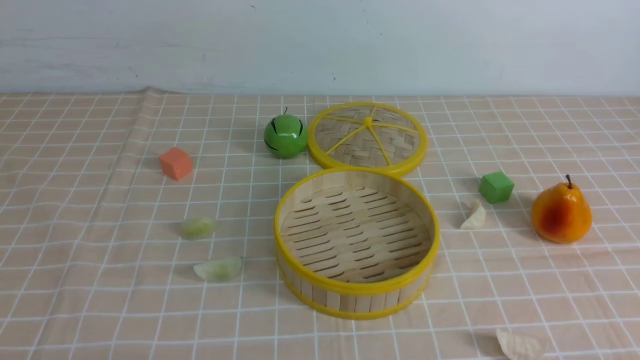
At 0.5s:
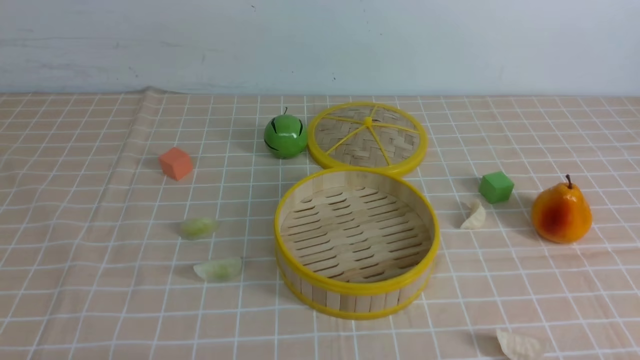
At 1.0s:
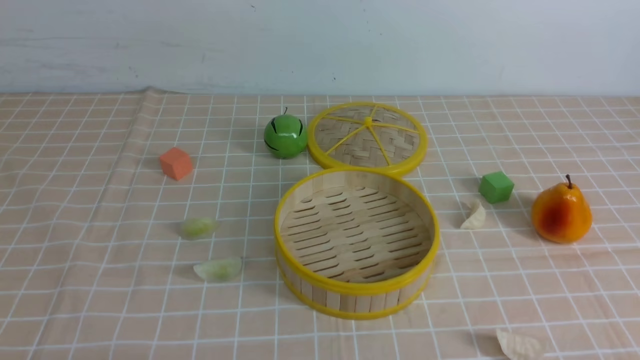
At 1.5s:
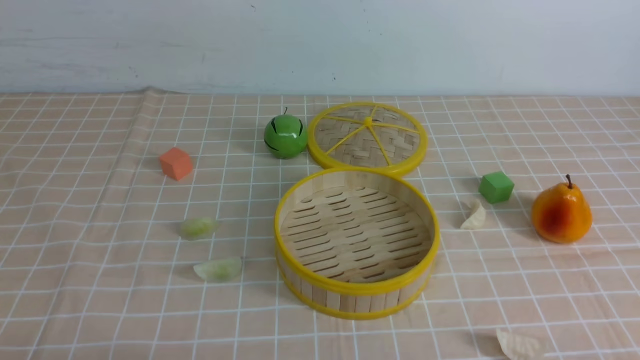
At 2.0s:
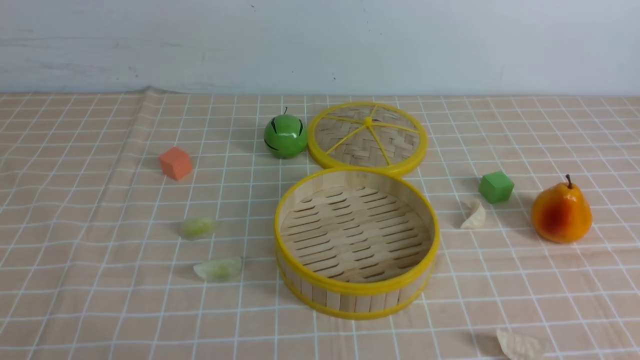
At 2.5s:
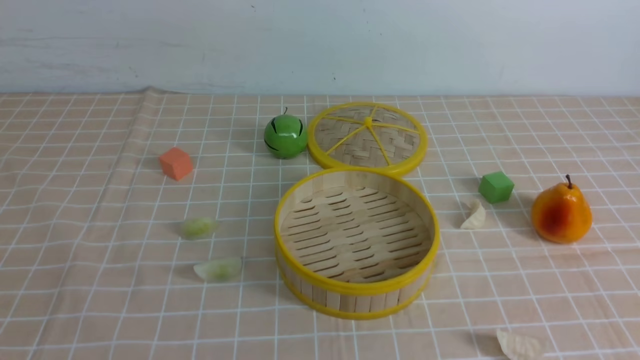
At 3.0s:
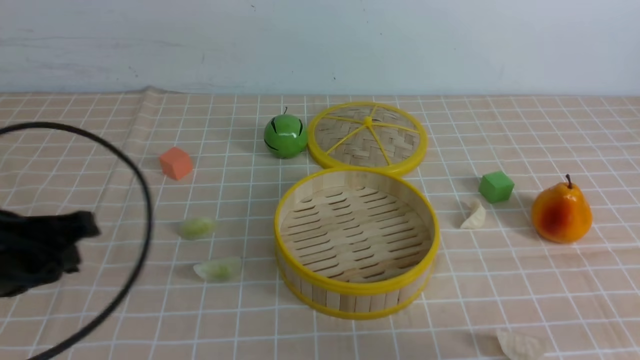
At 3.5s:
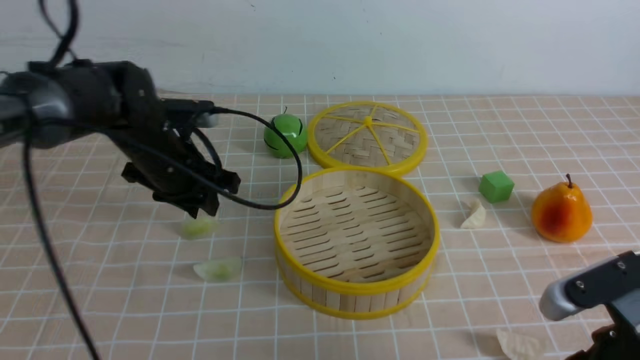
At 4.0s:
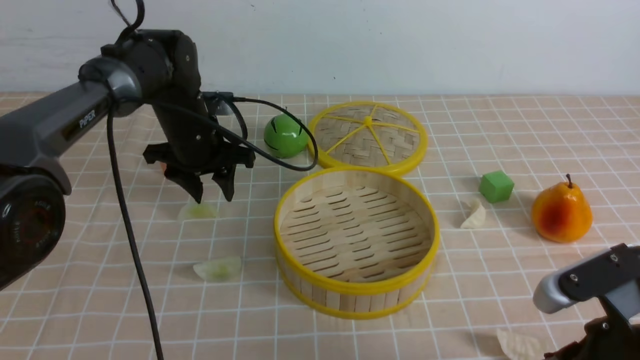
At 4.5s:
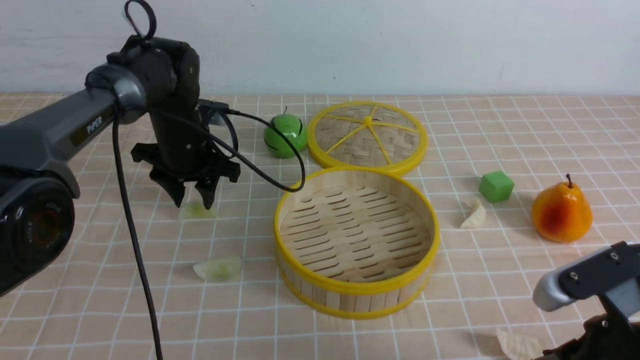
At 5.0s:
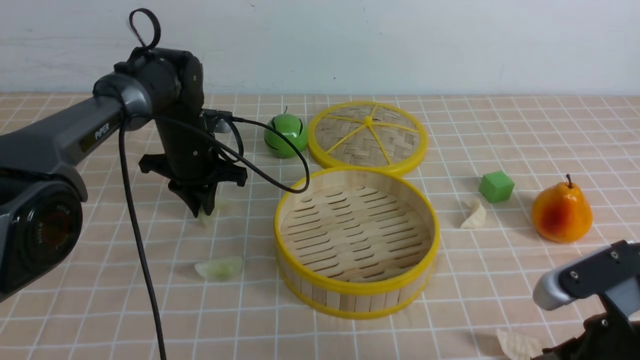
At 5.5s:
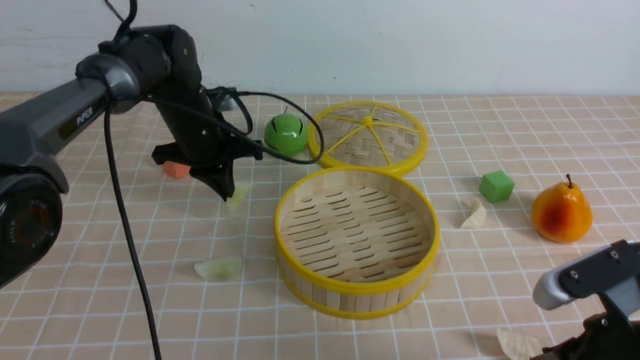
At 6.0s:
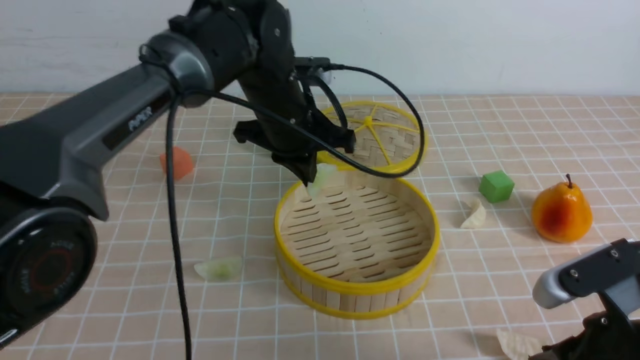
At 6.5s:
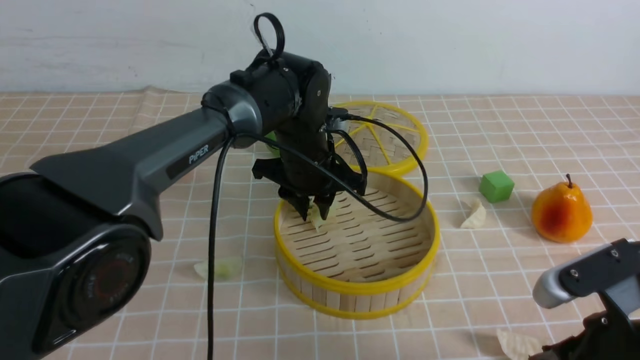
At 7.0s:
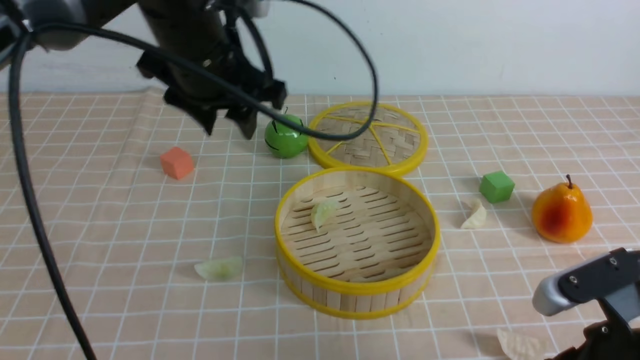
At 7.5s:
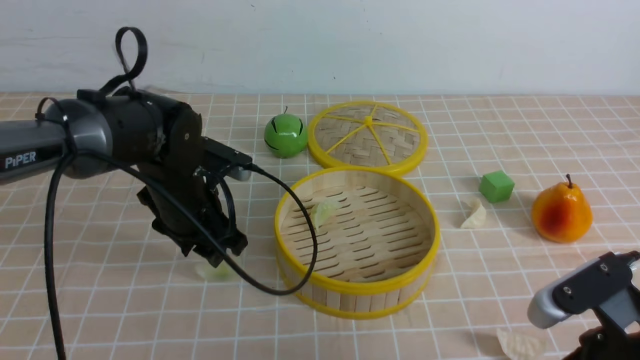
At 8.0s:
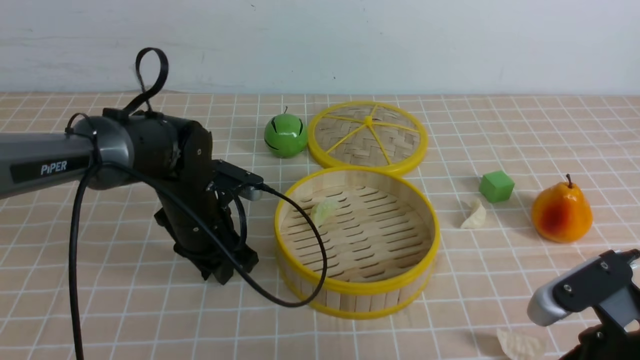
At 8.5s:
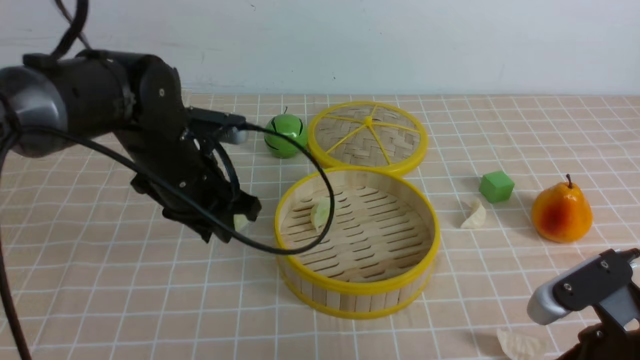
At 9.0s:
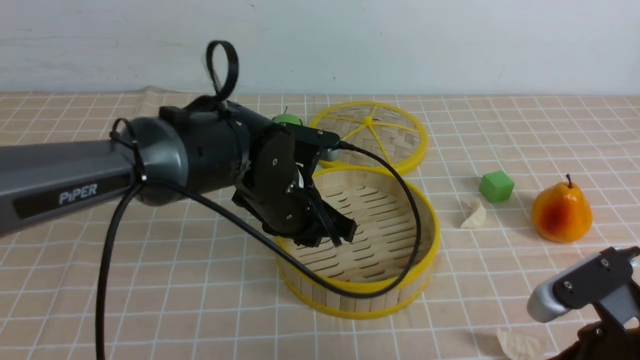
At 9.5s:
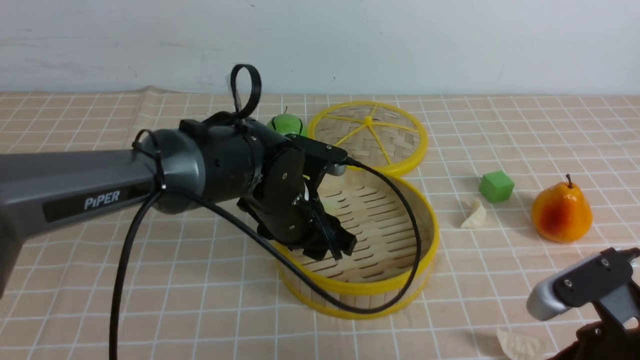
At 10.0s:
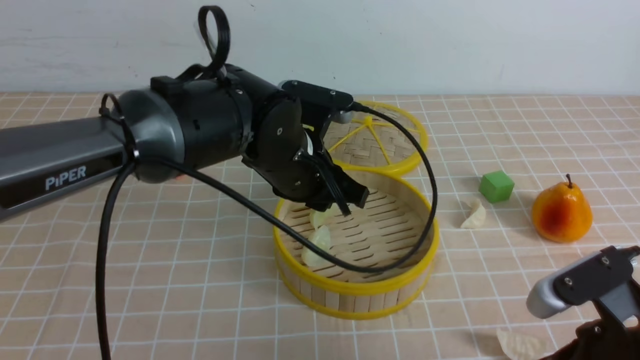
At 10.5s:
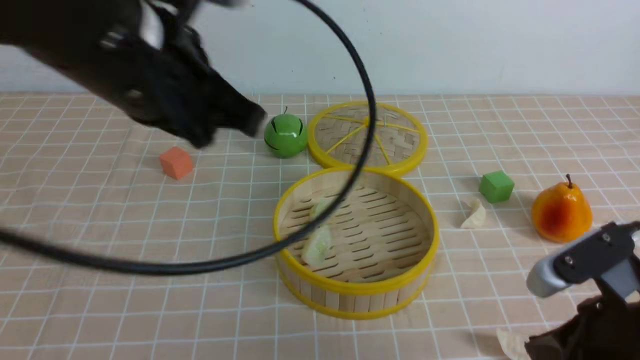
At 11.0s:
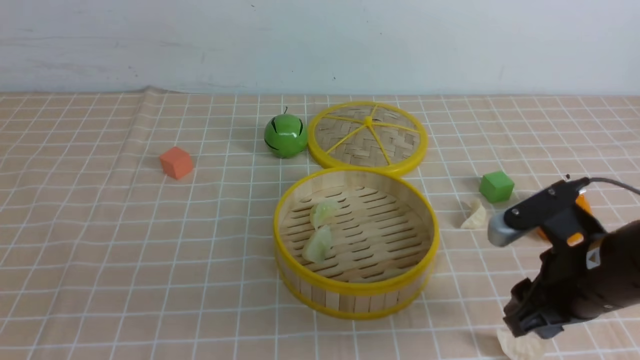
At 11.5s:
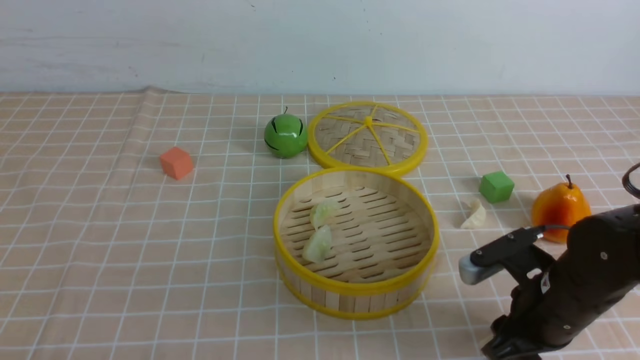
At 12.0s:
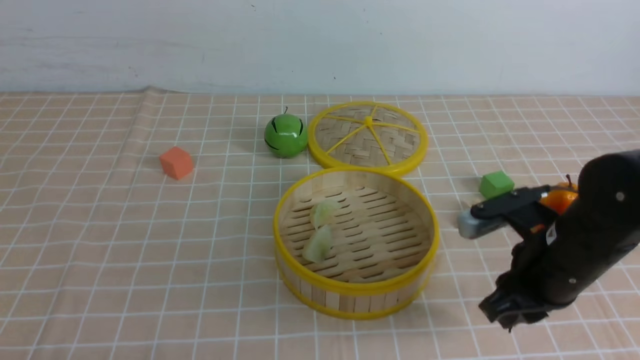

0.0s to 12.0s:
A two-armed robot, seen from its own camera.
Task of the whole recording: put the dumplings into the steamer on the table with the brown tablecloth.
Step, 0.0s to 5.0s: use the left arm to grab a dumpling.
Step, 5.5s to 6.5s: use the left arm to put the dumpling into the steamer.
Step, 7.0s to 8.0s: use the left arm to grab a dumpling.
Step, 8.5s to 9.5s: use the left arm to put the dumpling into the steamer.
Step, 10.0s to 11.5s: use the right arm to grab a dumpling.
2.0s to 4.0s: The left gripper is displaced forward by some 40 cm, and opens up, while the right gripper travels forward and to the left by some 15 cm.
4.0s to 6.0s: The left gripper is displaced to the right by some 10 cm, and closes.
6.0s to 8.0s: The left gripper travels to the left, downward and backward by roughly 15 cm, and opens. The right gripper closes its fingers.
8.0s to 10.0s: The left gripper goes about 15 cm to the right and upward.
10.0s to 12.0s: The left gripper heads backward and to the left, covering about 35 cm, and closes up, while the right gripper travels forward by about 10 cm, and opens its fingers.

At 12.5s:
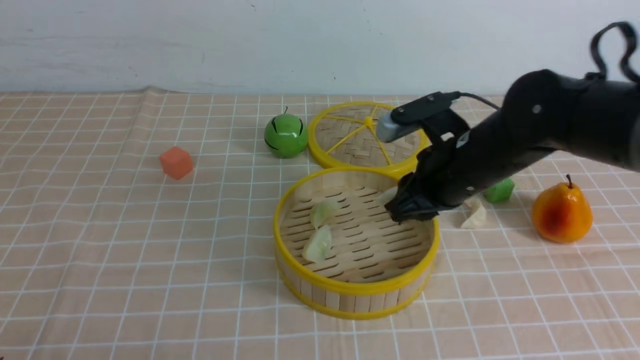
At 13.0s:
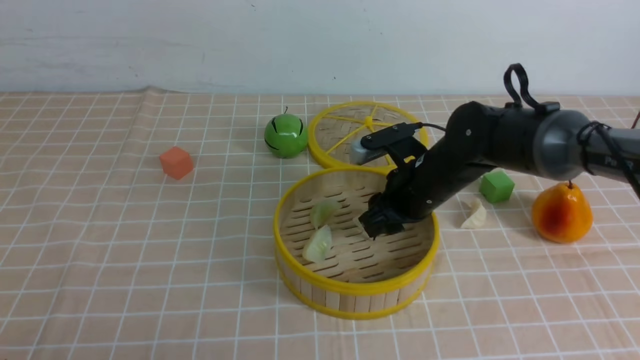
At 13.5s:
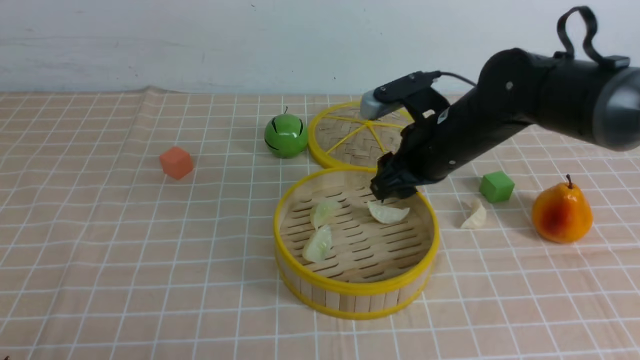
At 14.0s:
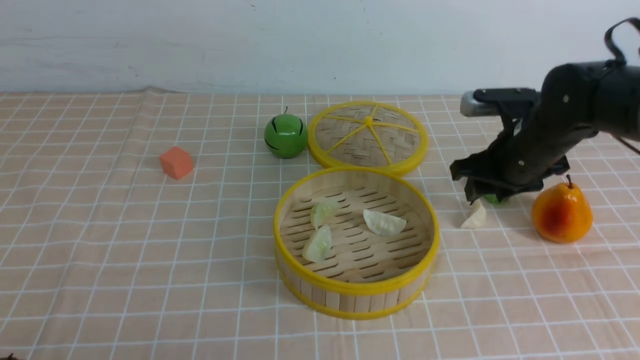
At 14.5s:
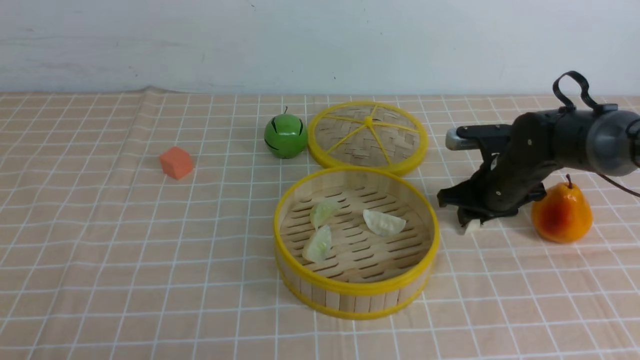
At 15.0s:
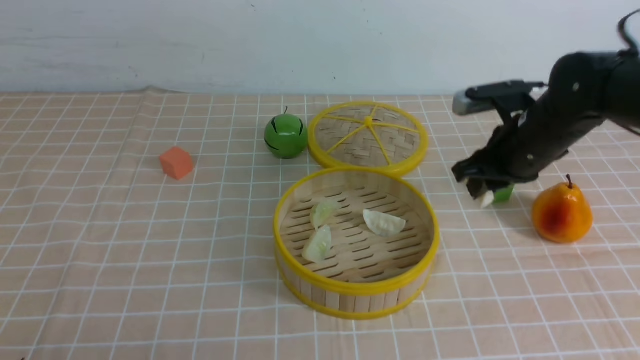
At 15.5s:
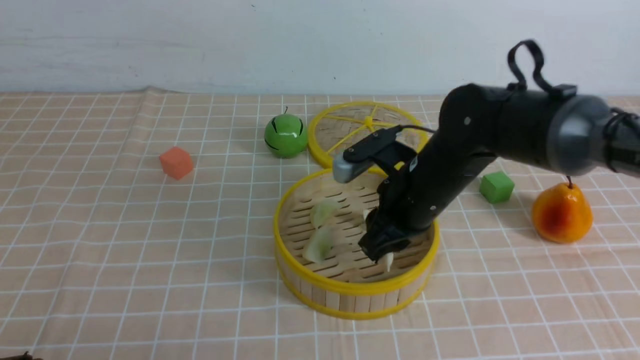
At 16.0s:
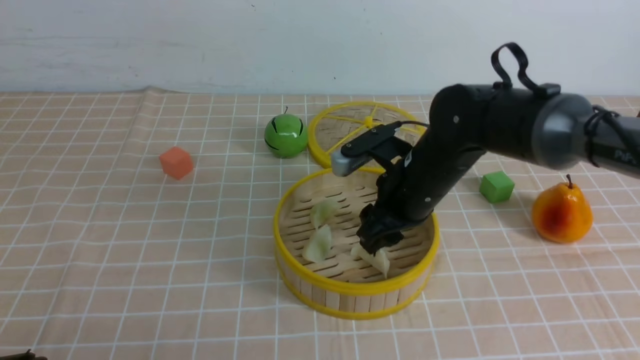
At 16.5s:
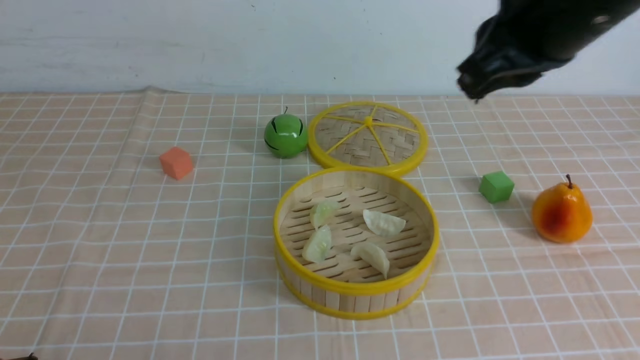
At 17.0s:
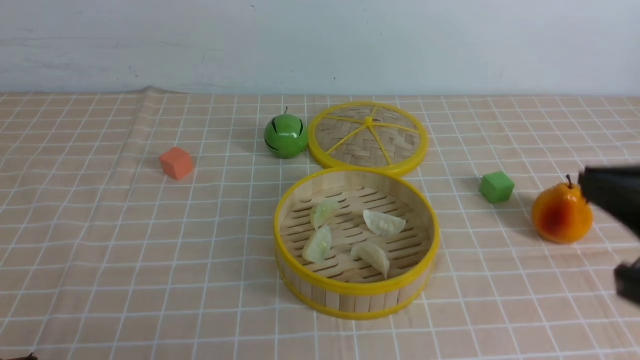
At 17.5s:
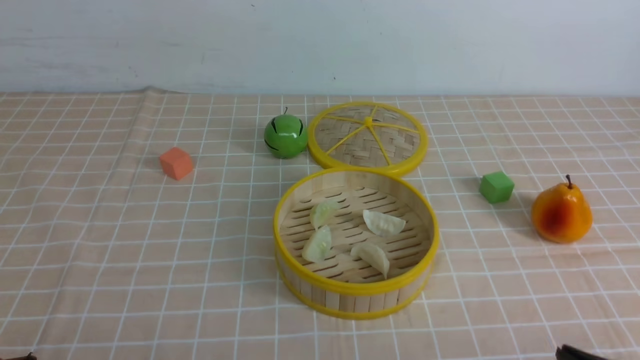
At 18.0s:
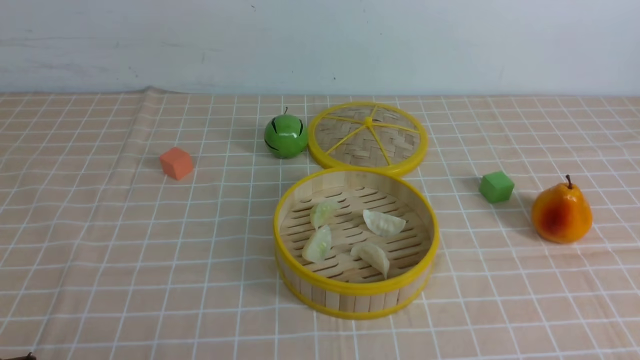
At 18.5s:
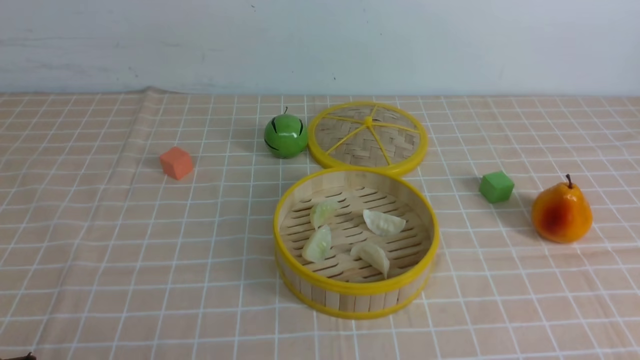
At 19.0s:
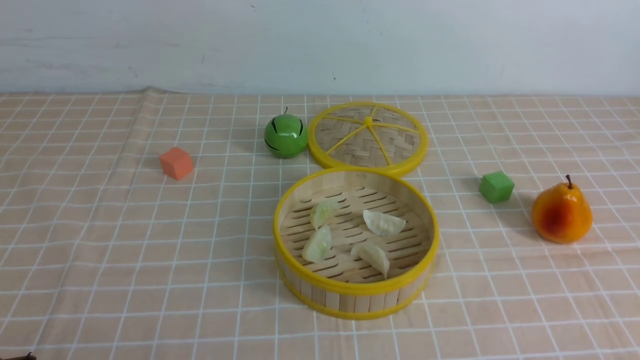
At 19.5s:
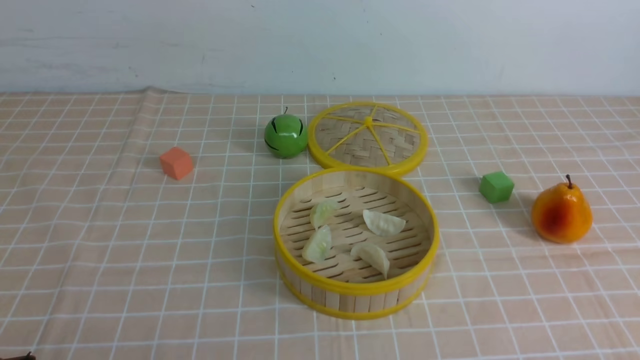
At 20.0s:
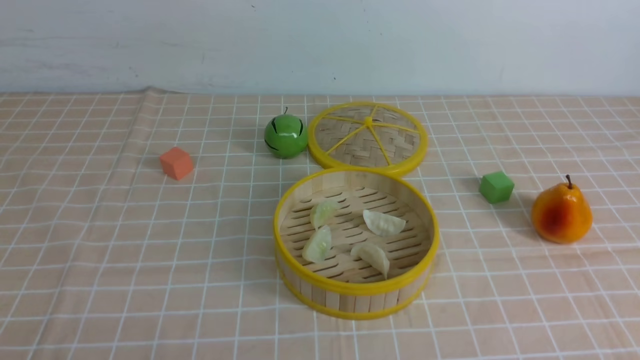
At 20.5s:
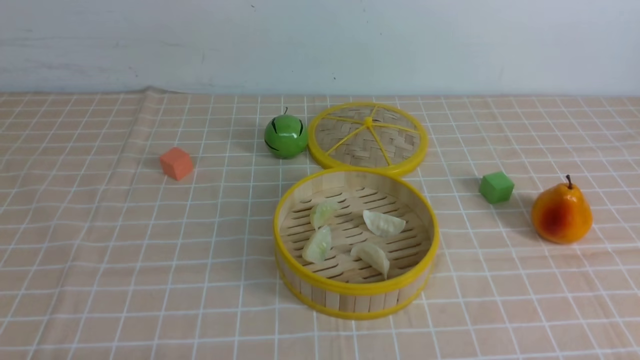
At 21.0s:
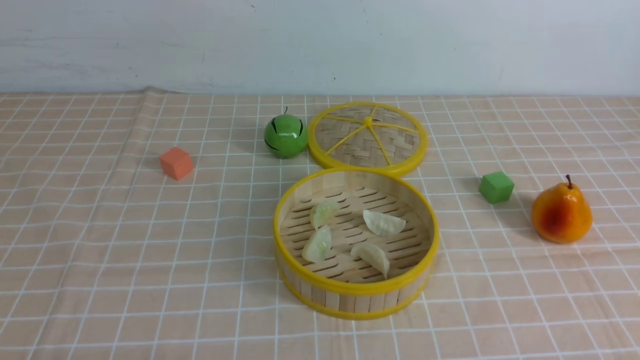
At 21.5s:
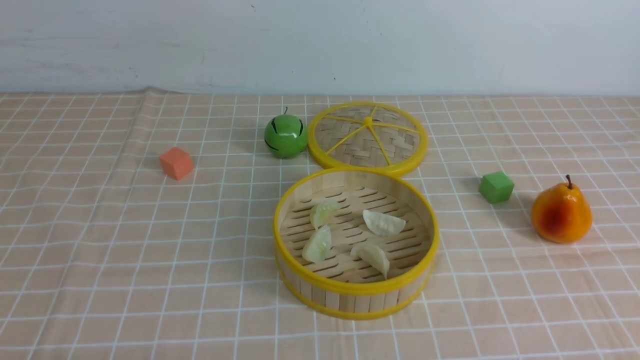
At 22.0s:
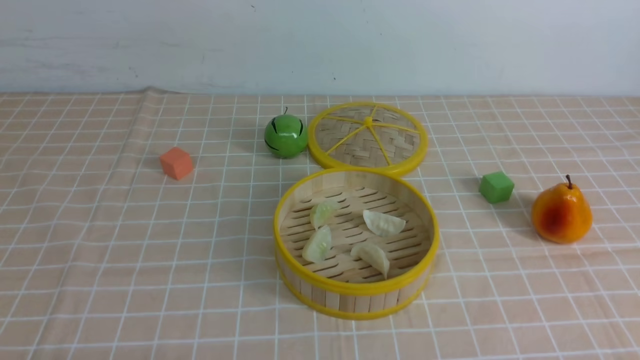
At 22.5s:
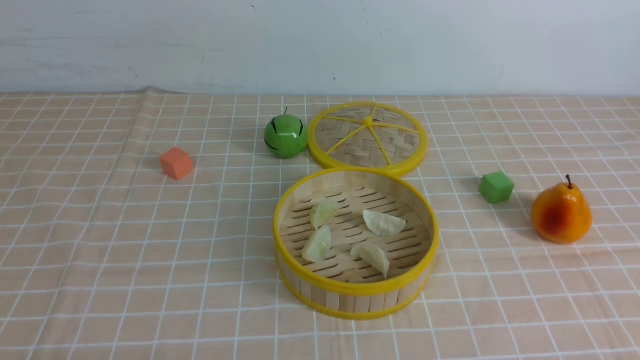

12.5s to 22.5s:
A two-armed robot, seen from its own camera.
Task of the whole recording: put the dumplings into the steamer on the table with the brown tablecloth.
Step, 12.5s to 13.5s: use the right arm to put the dumpling into the steamer.
Step, 14.0s to 14.5s: use the right arm to grab a dumpling.
Step, 15.0s to 16.0s: use the right arm to put the dumpling into the steamer.
12.5s to 14.5s: The right gripper travels to the right, downward and forward by about 15 cm.
14.5s to 16.5s: The right gripper shifts some 30 cm upward and backward, and closes up.
16.5s to 18.5s: The right gripper is displaced downward, backward and to the right by roughly 35 cm.
20.5s to 22.5s: The two grippers keep their place.
